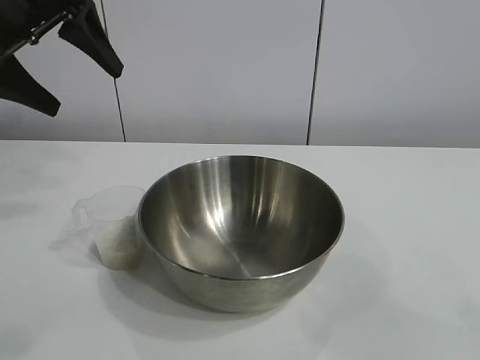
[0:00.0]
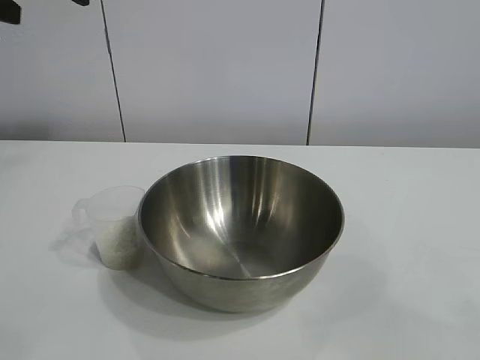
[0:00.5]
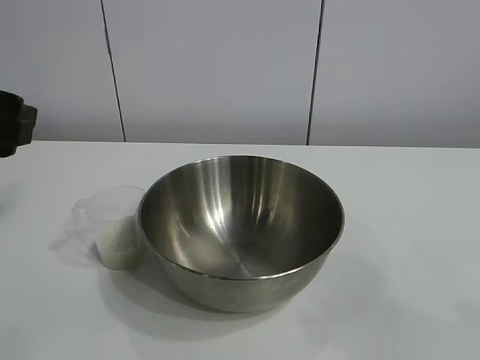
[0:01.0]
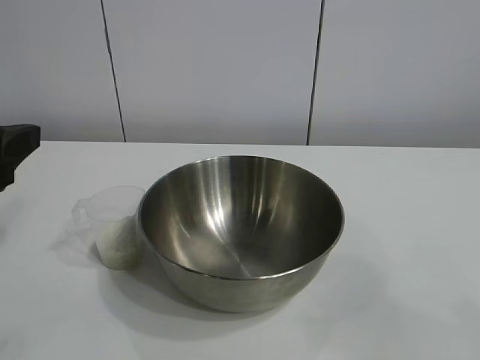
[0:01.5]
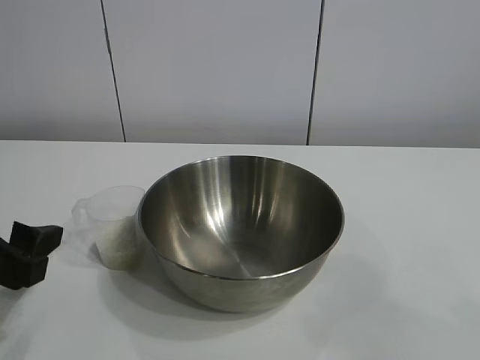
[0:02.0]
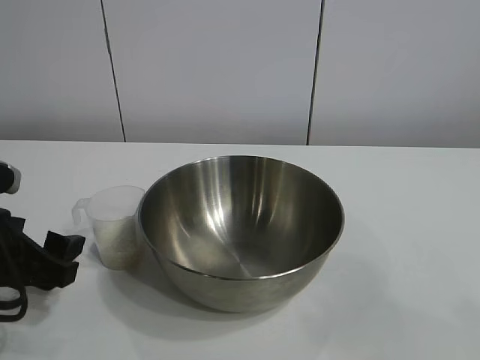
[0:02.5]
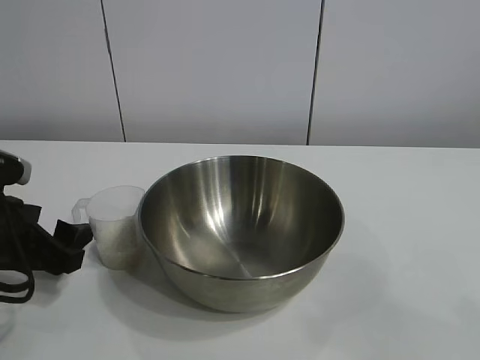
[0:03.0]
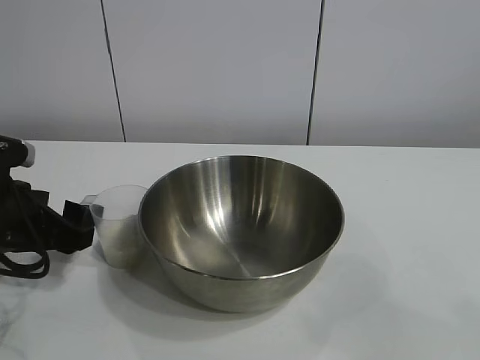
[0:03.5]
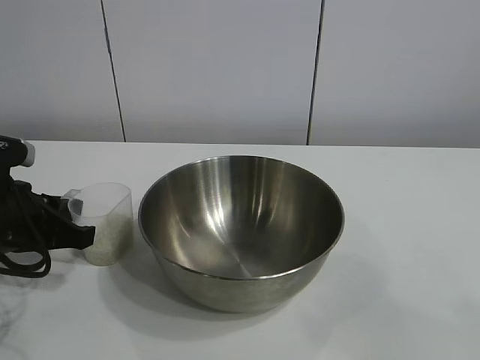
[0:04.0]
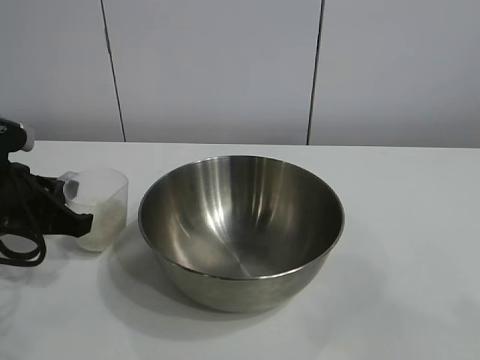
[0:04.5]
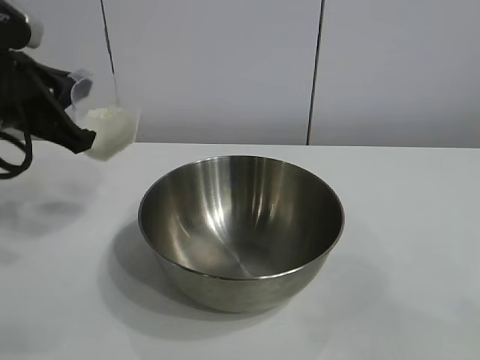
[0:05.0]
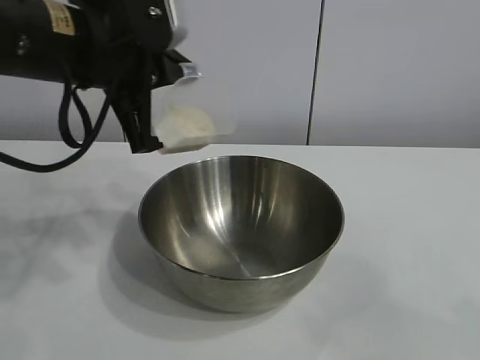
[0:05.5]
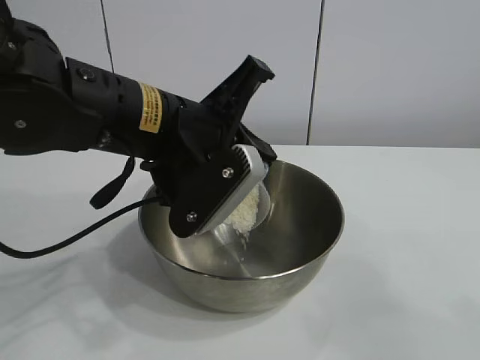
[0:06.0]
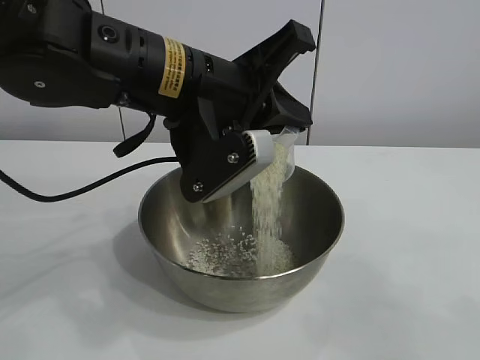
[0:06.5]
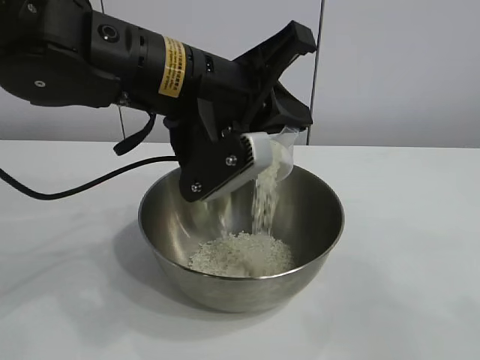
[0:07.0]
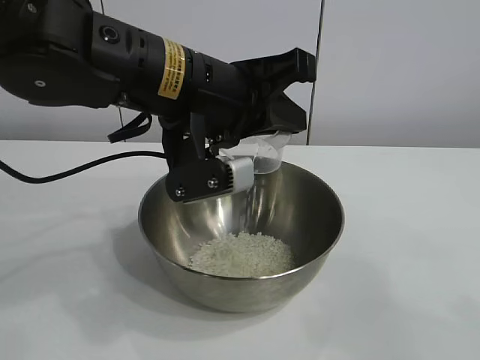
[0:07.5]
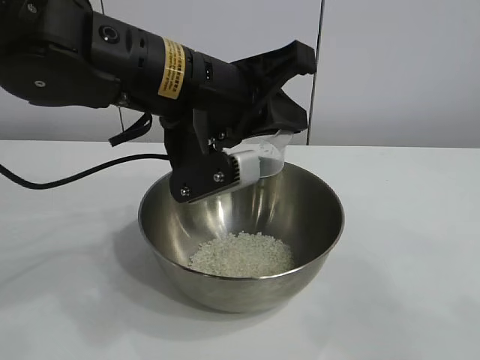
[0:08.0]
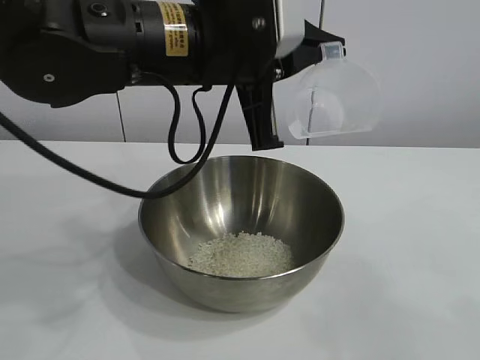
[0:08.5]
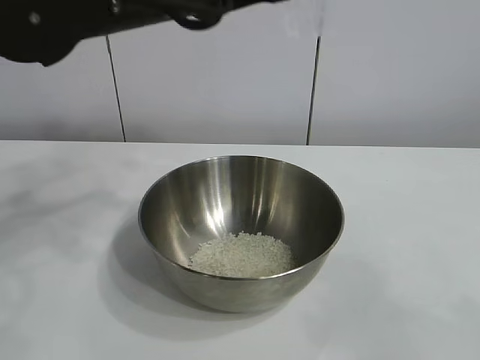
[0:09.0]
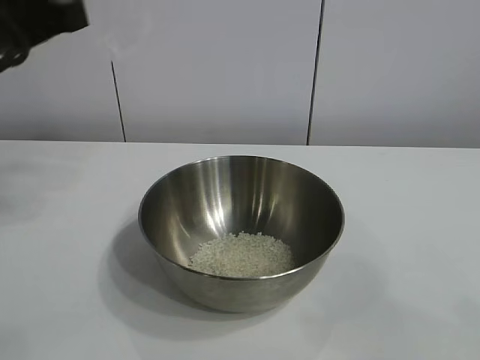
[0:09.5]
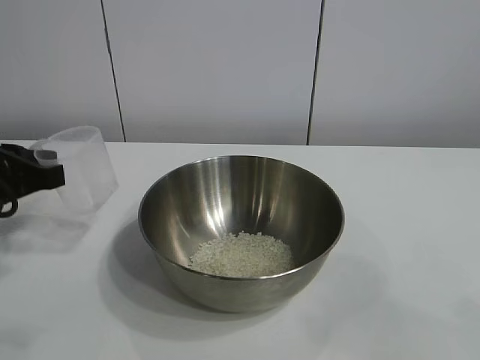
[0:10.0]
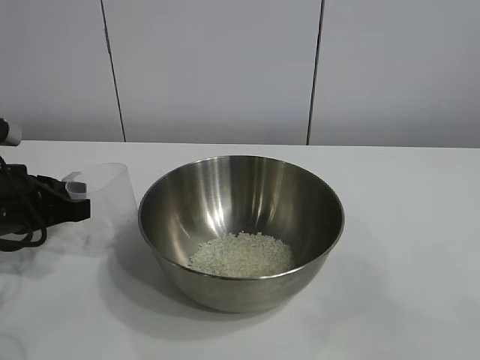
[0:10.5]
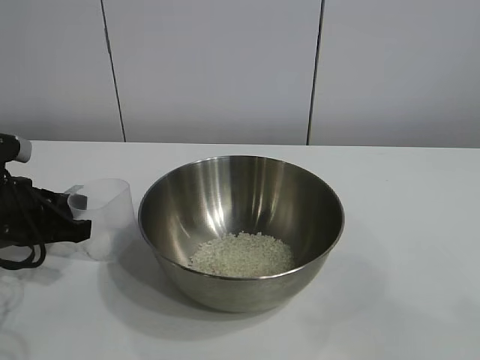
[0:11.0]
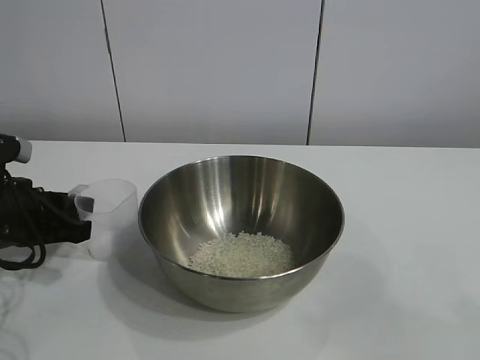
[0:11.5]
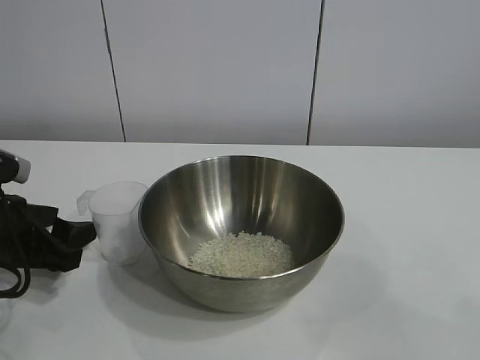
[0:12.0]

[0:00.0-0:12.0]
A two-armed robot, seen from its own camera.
Task of the whole recording: the right gripper grasp the rice container and place it in the center of the table, the left gripper grasp the rice scoop and pour the rice into the rice container.
Step, 0:00.0 to 0:04.0: Grasp the cup with rice in it with left gripper.
Step, 0:04.5 to 0:07.5: Pour the rice from the cup into the bowl with the left gripper.
Step, 0:08.0 to 0:11.5: Place the cup on the table with the left gripper.

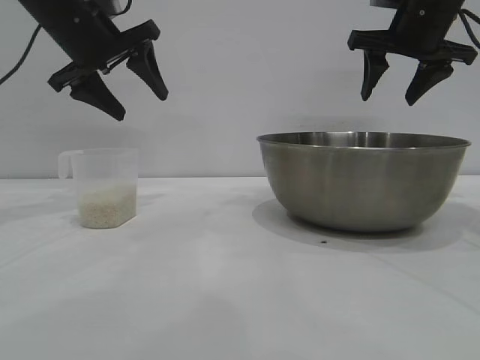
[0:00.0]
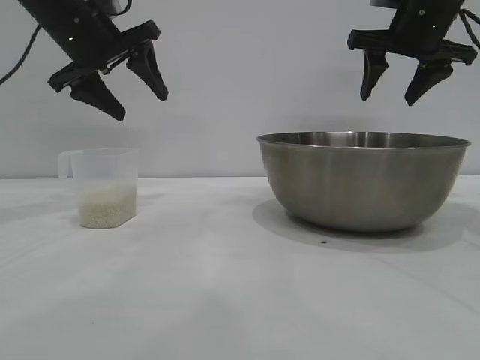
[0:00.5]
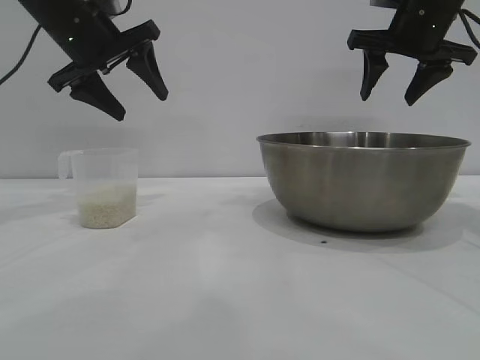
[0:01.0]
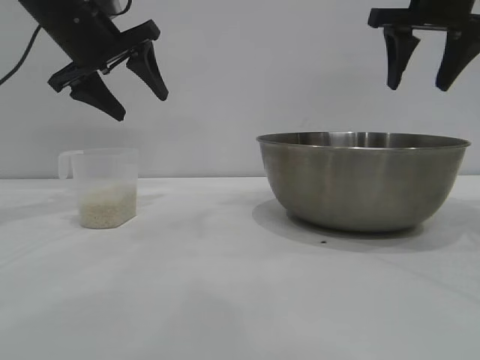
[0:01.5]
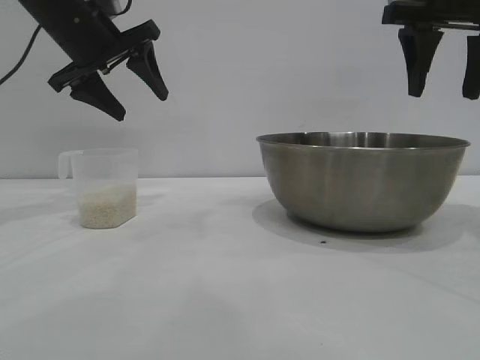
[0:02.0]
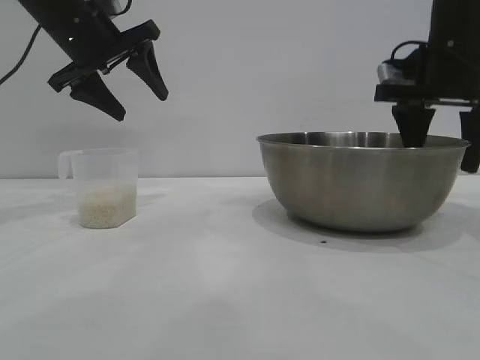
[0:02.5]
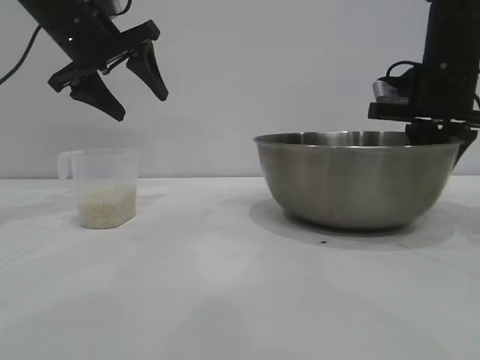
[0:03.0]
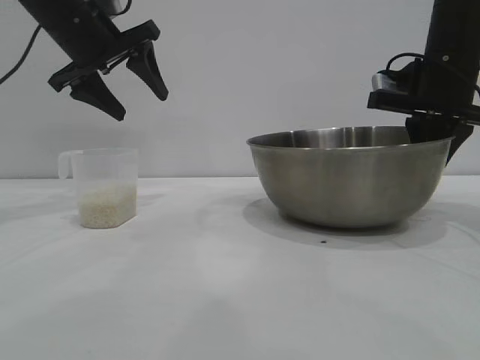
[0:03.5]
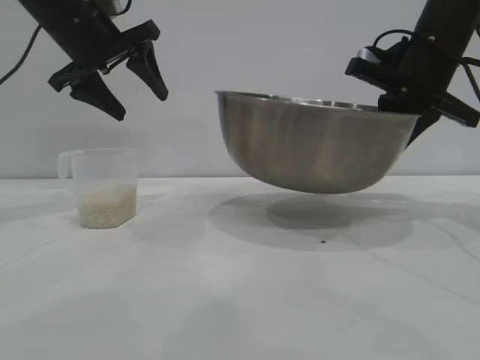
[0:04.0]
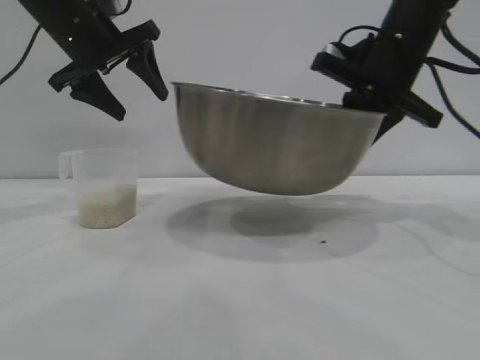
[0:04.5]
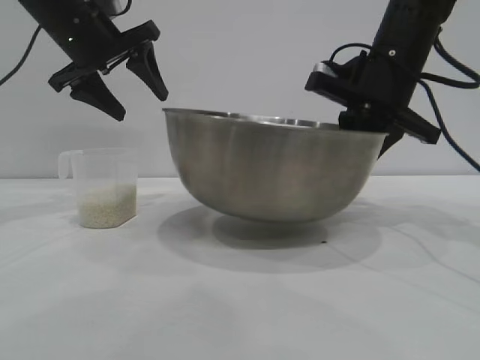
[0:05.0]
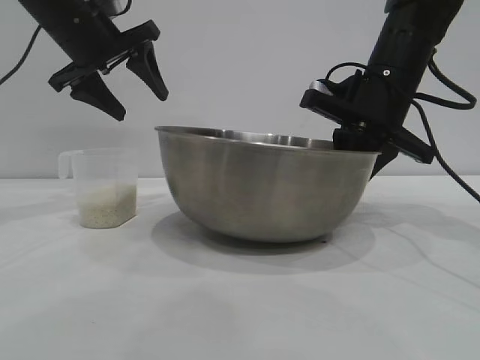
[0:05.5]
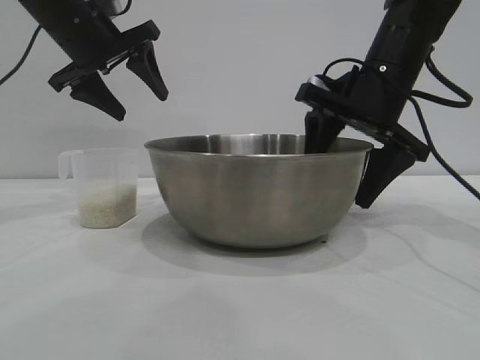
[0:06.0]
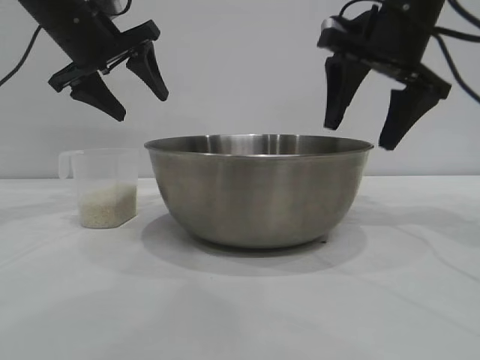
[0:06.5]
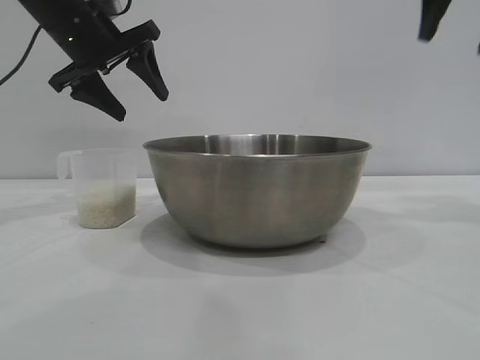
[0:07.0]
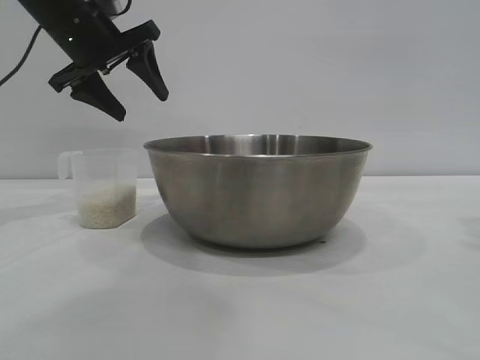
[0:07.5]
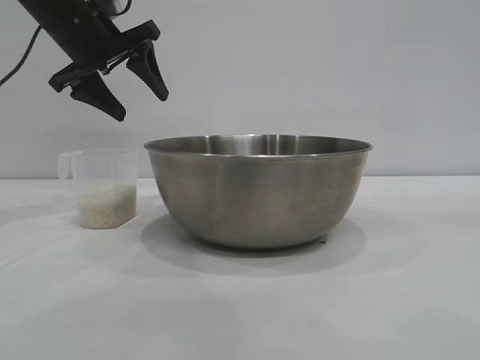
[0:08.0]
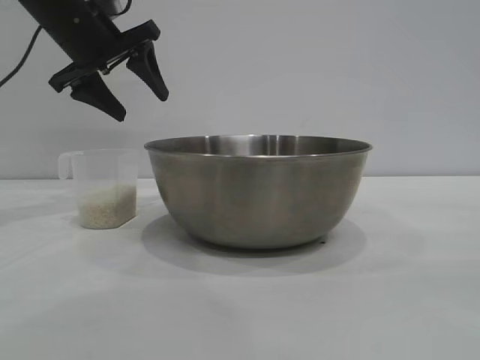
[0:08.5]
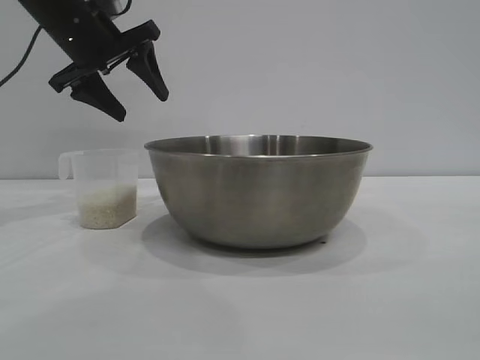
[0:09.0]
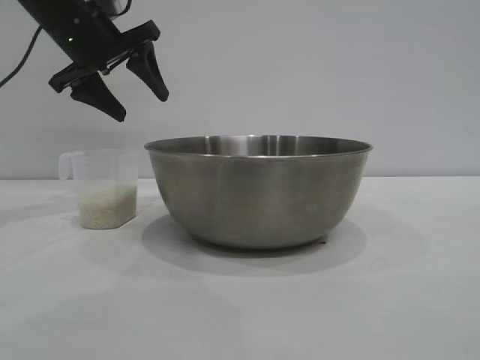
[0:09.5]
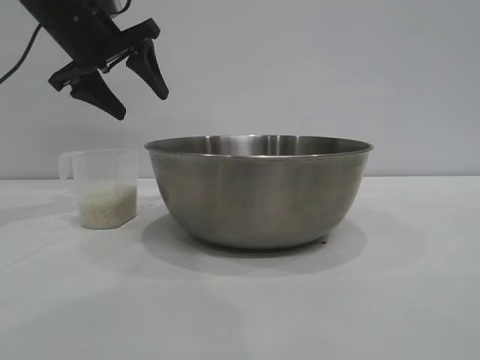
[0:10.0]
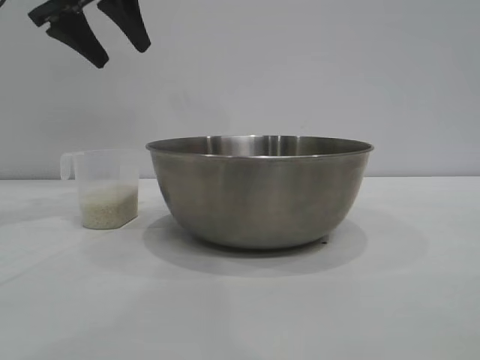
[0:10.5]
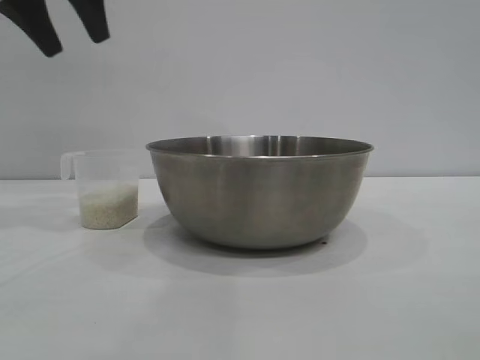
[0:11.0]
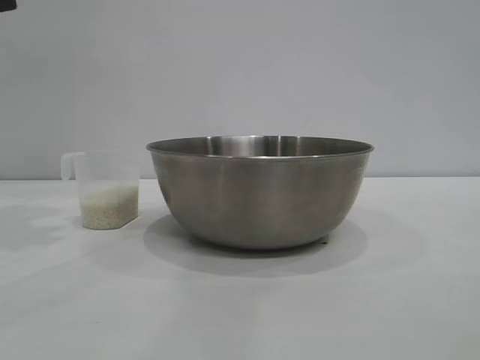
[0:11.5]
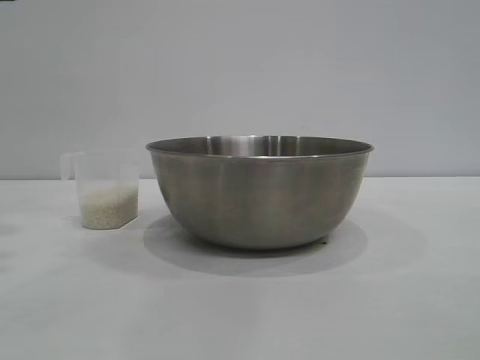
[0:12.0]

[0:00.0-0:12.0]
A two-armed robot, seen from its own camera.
Task of the whole recording: the right gripper grasp the rice container and place it in the center of the table, the left gripper grasp the rice scoop and pour the rice into the rice container.
Step, 0:00.0 to 0:03.5: Pick up the bowl with the right gripper.
Step, 0:04.0 to 0:06.5: Place the bowl in the center of view with the right gripper.
